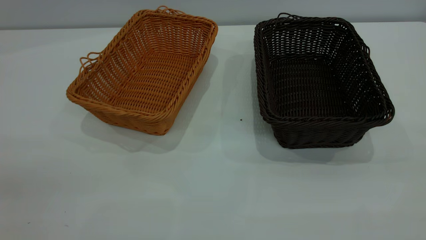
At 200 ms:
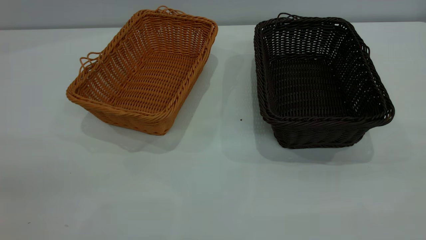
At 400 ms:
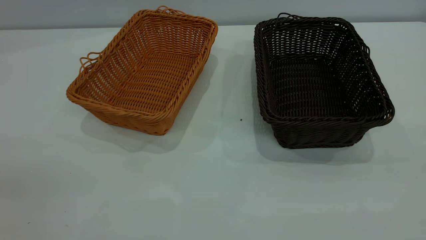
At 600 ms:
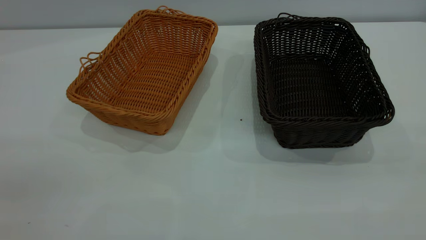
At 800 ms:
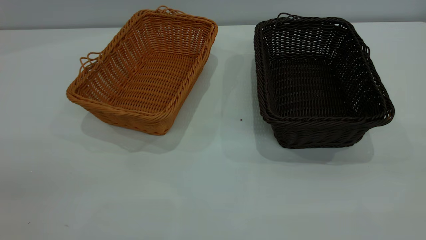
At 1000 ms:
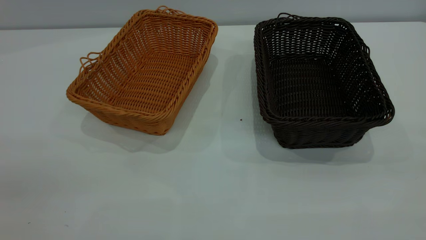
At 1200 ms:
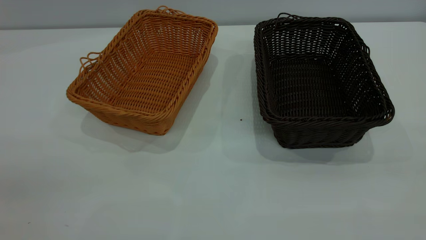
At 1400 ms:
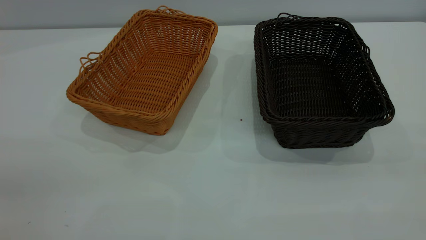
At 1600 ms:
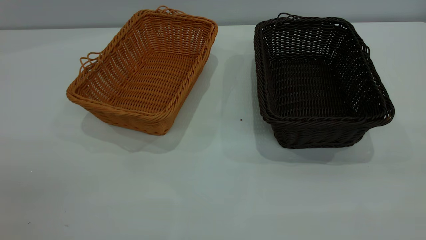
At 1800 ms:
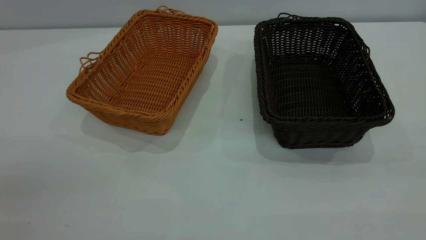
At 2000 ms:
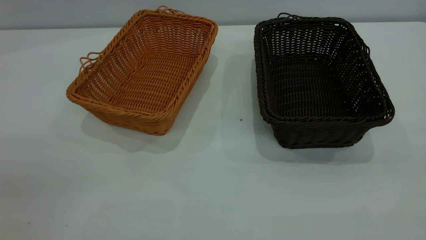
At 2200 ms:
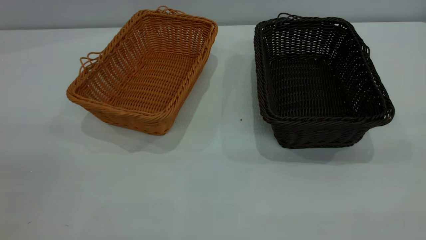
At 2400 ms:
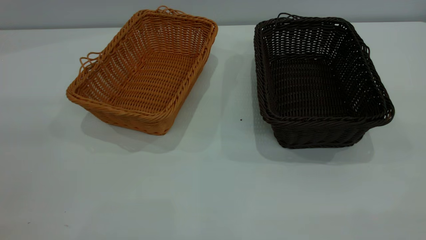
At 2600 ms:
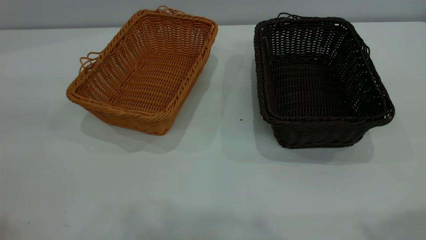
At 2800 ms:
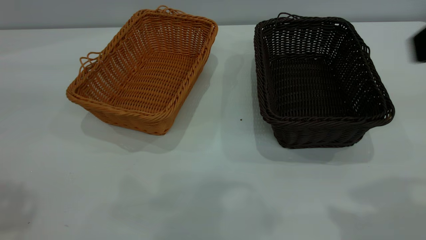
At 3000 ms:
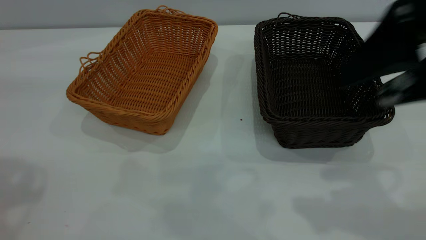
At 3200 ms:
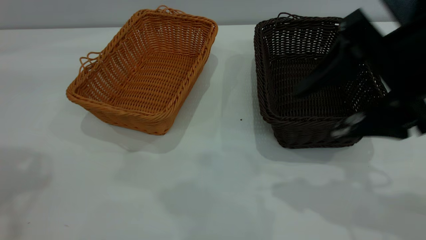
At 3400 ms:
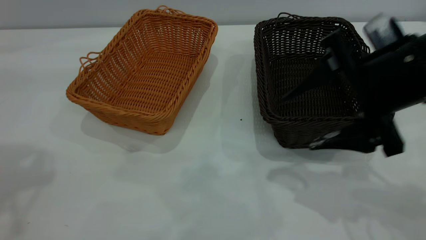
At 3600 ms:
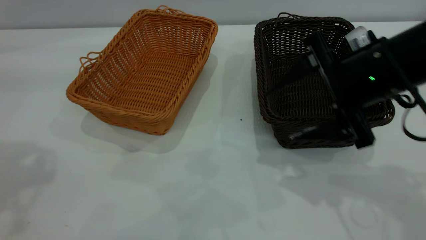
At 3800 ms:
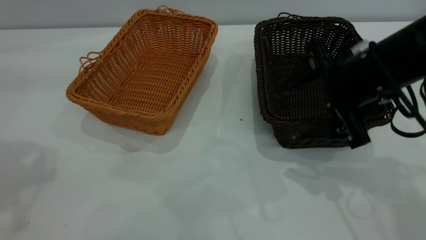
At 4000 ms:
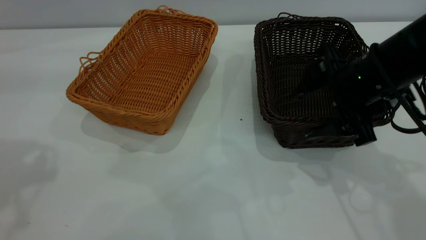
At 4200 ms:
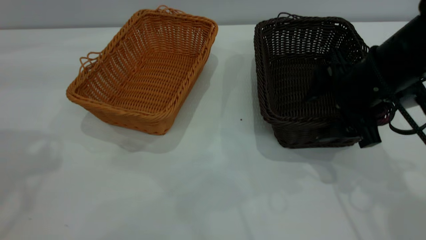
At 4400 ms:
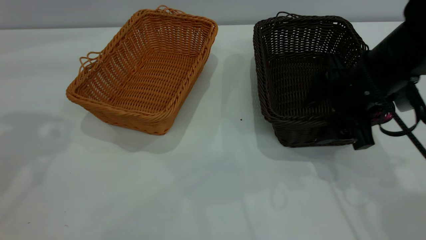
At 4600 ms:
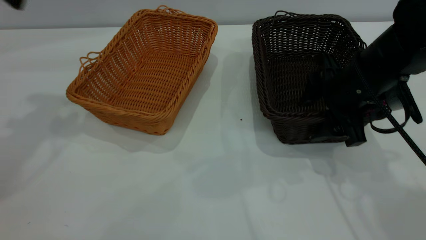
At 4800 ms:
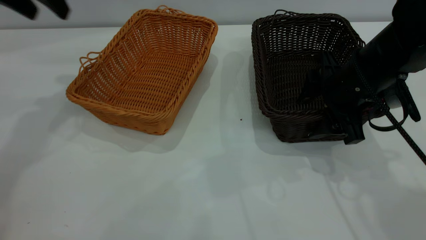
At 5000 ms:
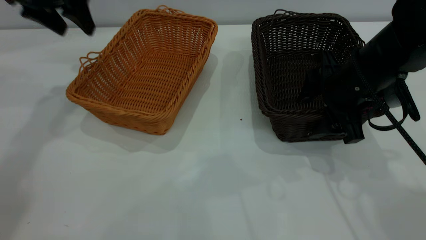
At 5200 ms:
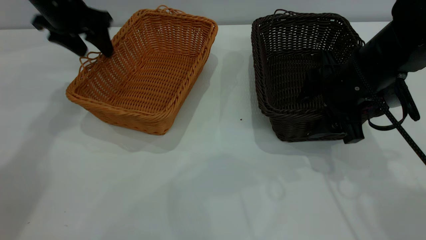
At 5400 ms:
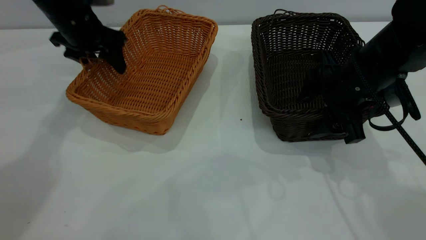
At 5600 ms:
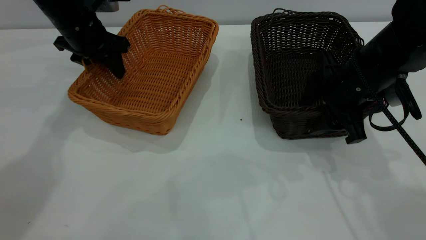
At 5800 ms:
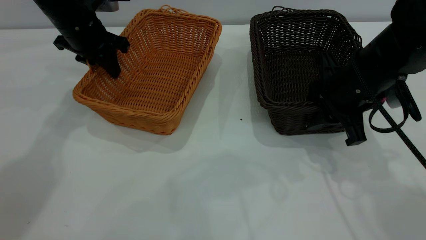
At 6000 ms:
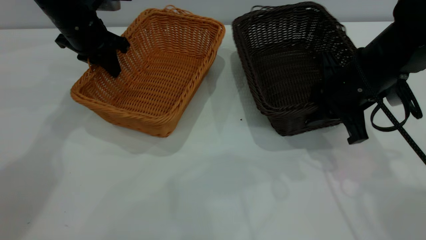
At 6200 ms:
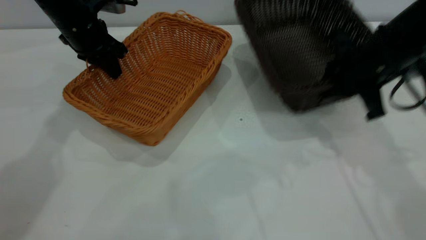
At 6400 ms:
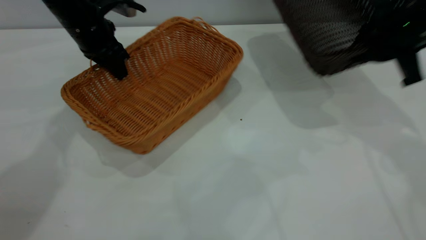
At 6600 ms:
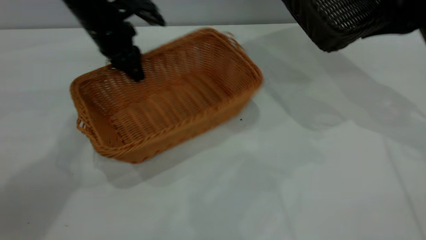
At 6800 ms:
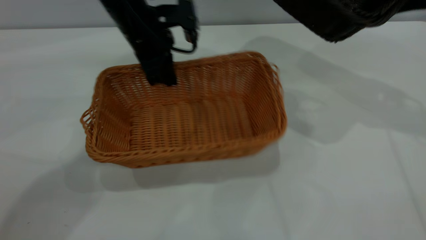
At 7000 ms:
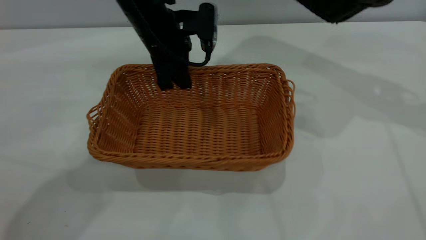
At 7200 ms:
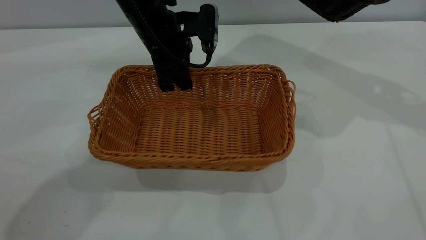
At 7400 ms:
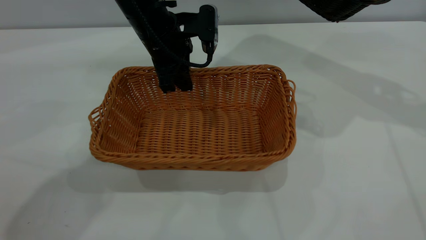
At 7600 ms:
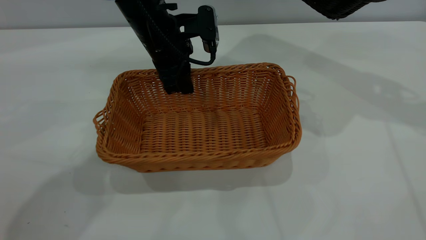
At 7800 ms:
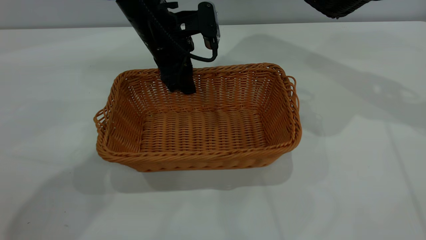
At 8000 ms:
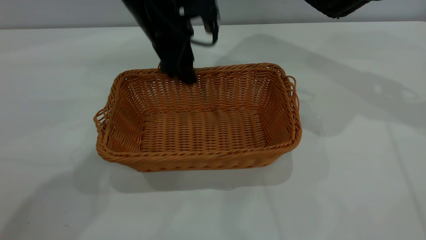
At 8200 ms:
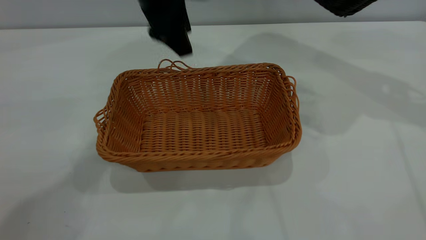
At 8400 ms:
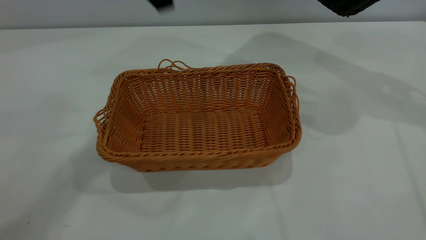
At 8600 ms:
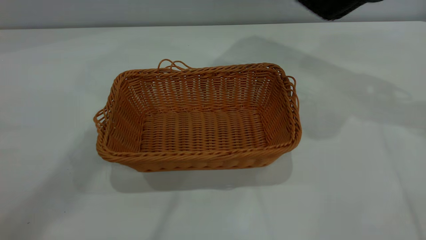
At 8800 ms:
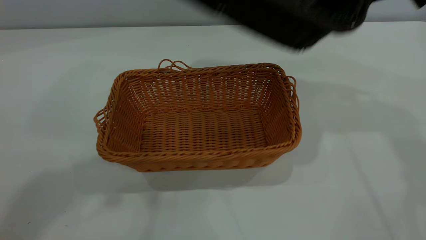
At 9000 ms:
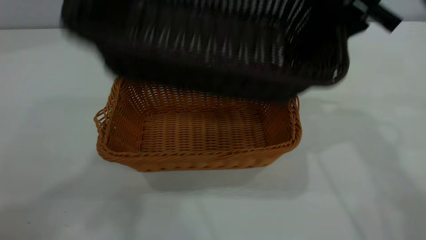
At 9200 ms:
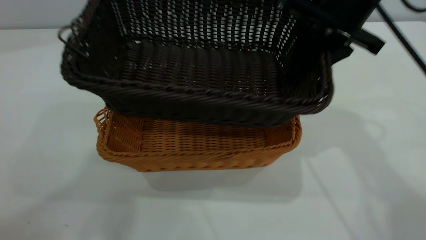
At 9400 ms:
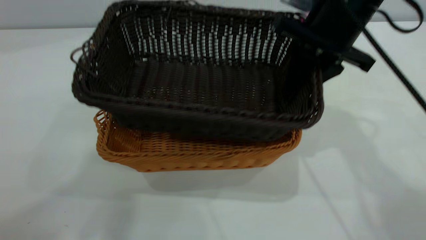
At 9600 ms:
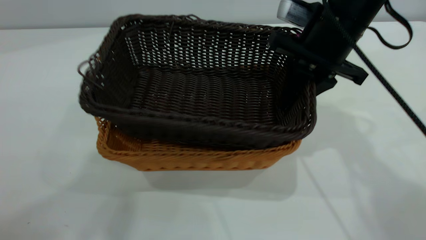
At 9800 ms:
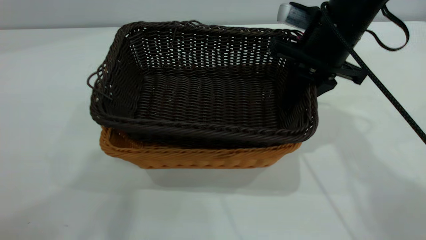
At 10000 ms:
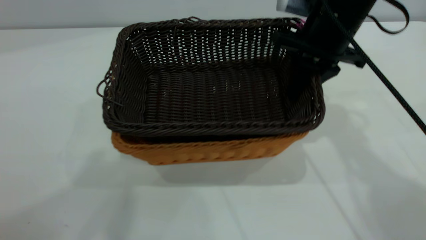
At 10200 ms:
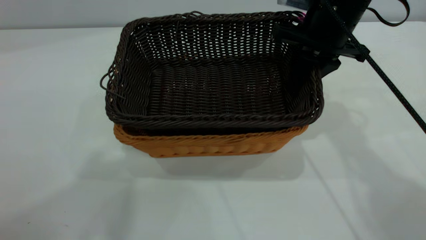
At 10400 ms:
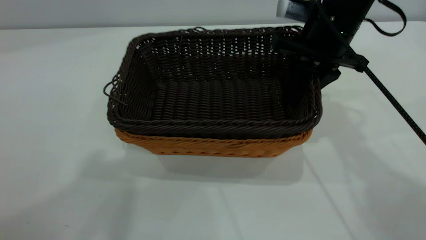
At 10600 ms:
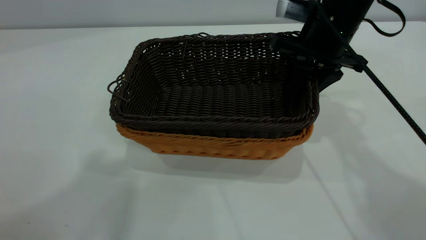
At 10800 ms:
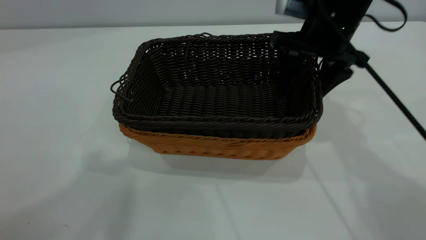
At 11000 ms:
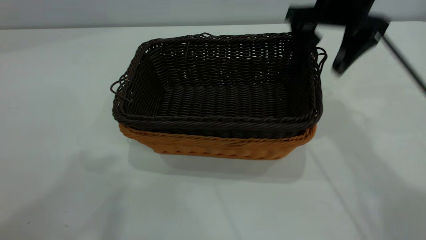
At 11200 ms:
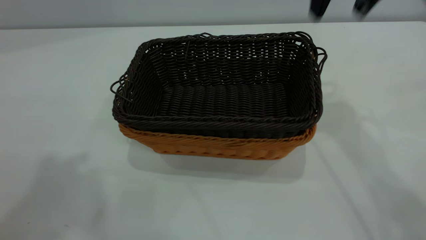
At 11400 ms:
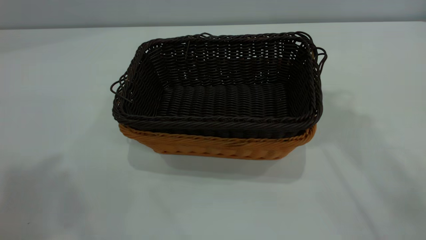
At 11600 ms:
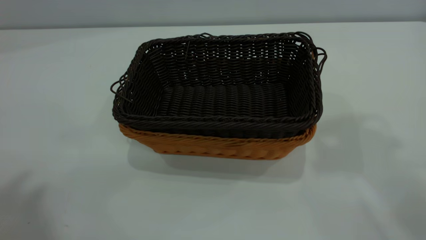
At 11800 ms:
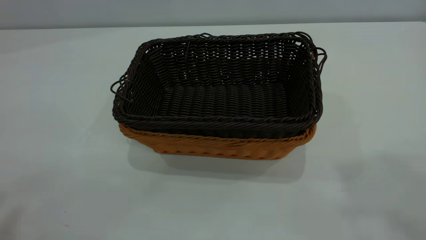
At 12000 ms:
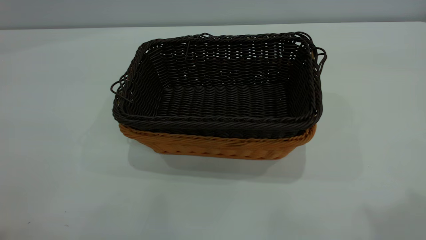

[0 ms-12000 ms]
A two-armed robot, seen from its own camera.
Task of the whole recording: the left gripper grasp the brown basket and place it in the center of the table, the right gripper grasp the black basket and place it inside the brown one.
Step, 0 ms to 6200 ms: Pick up the light basket with the right gripper.
Step, 6400 ms to 8000 ms: Place the light-colored basket in the center.
Step, 8200 ms to 11000 ms: Place the dark basket on top of the light basket.
0 ms to 1600 ms: Neither gripper changes place.
1600 ms to 3000 ms: The right gripper moves forward, downward and to the left, roughly 25 cm, and opens its fingers.
3000 ms to 4400 ms: The right gripper heads downward and forward, covering approximately 20 cm.
4400 ms to 6000 ms: The left gripper moves downward and forward, some 25 cm, and closes. Meanwhile the right gripper closes.
6000 ms to 7600 ms: The right gripper shifts roughly 20 cm upward, to the right and forward. The left gripper travels to the right by some 15 cm.
7600 ms to 9000 ms: The left gripper moves upward and backward, some 50 cm, while the right gripper goes approximately 15 cm to the left.
9000 ms to 10400 ms: The right gripper goes approximately 10 cm downward.
10400 ms to 12000 ms: The right gripper goes about 40 cm upward and backward, and opens its fingers. The left gripper moves backward and to the left, roughly 15 cm.
